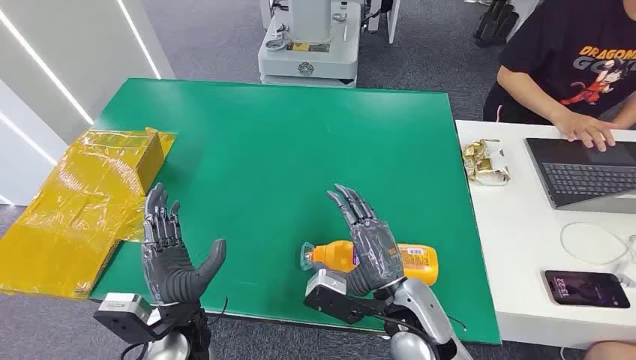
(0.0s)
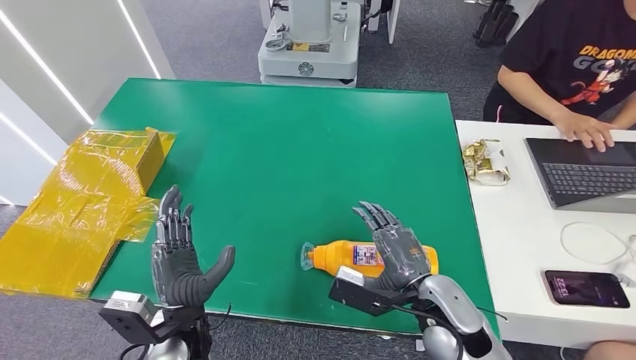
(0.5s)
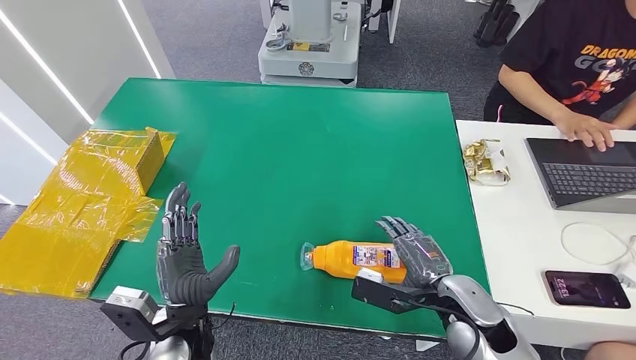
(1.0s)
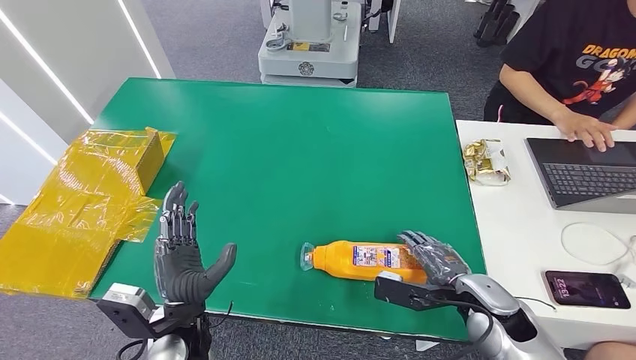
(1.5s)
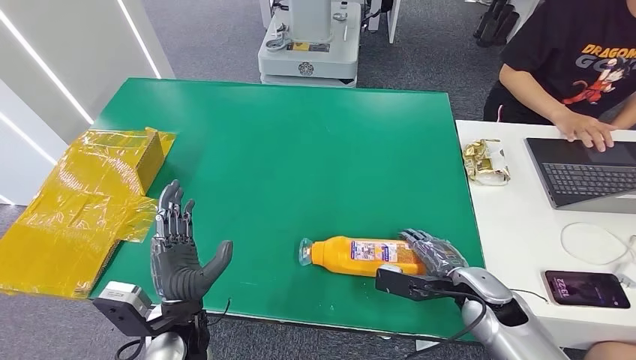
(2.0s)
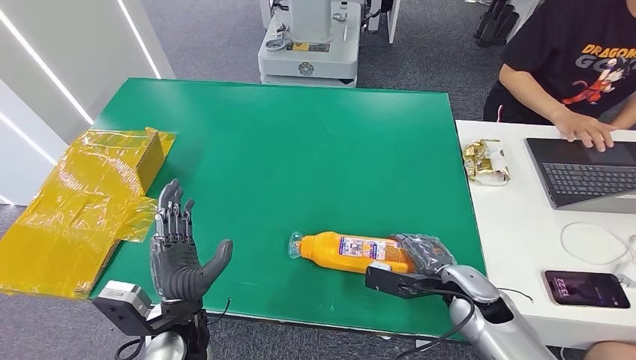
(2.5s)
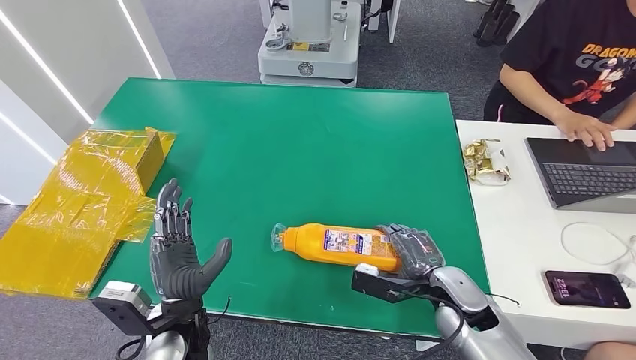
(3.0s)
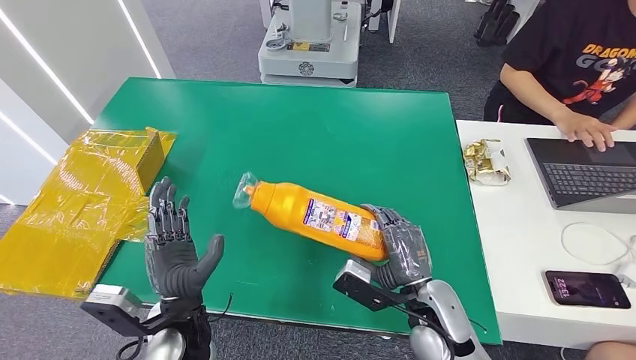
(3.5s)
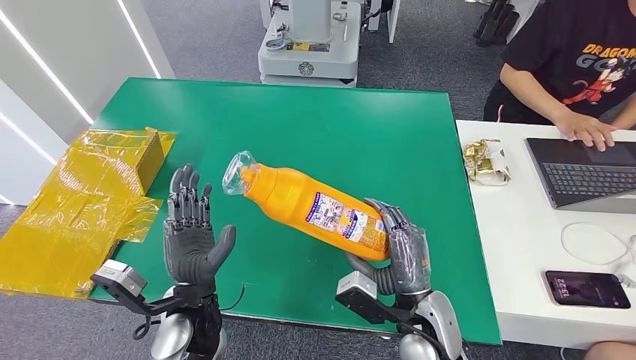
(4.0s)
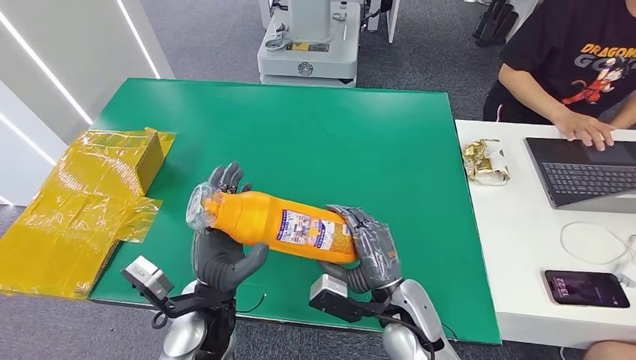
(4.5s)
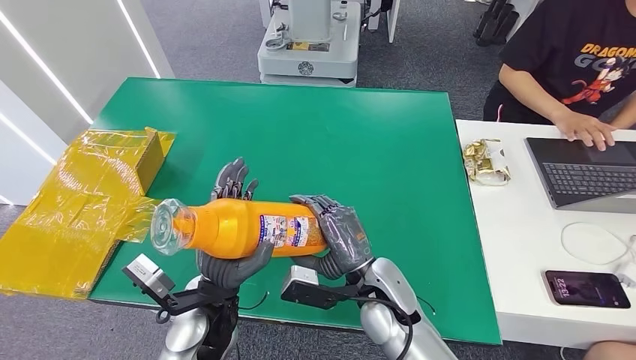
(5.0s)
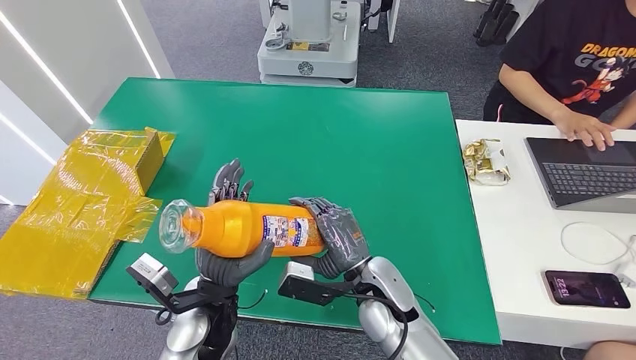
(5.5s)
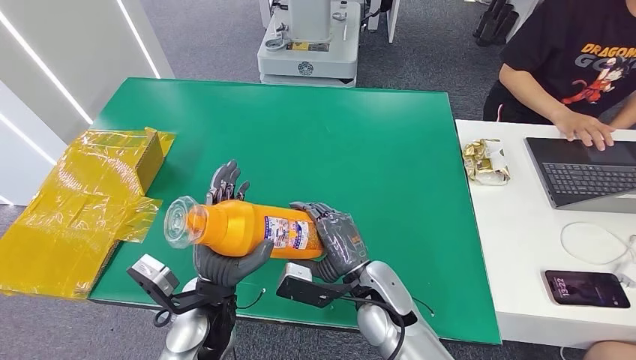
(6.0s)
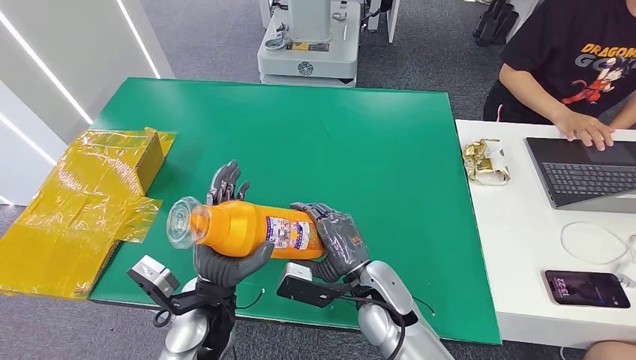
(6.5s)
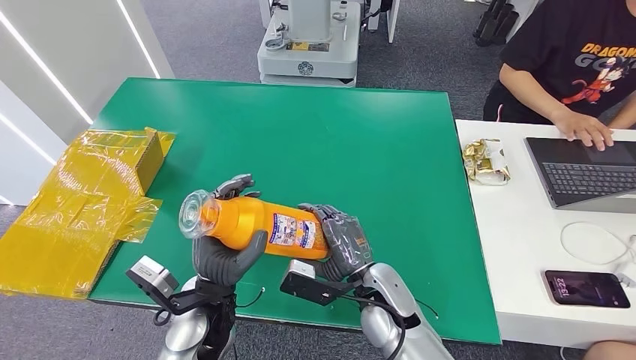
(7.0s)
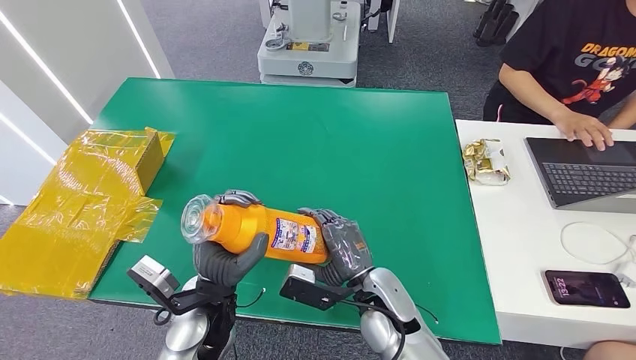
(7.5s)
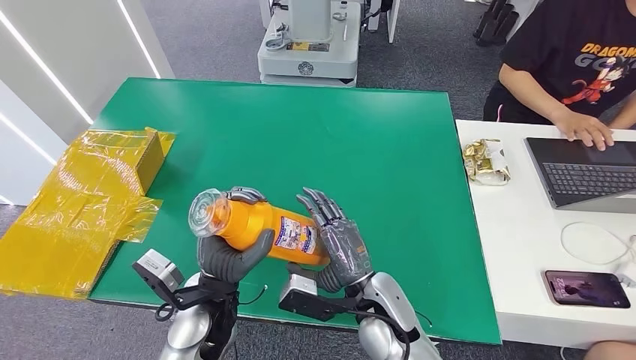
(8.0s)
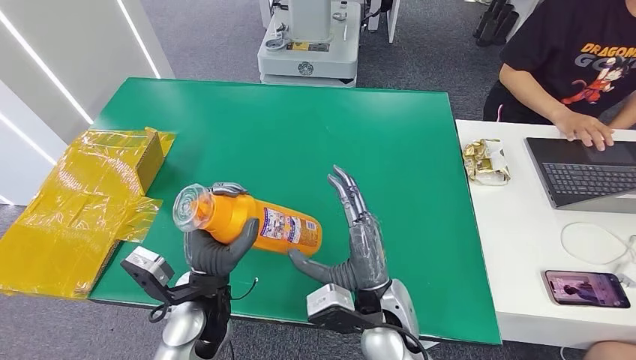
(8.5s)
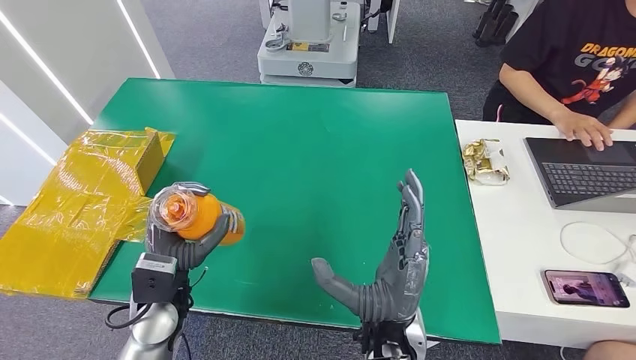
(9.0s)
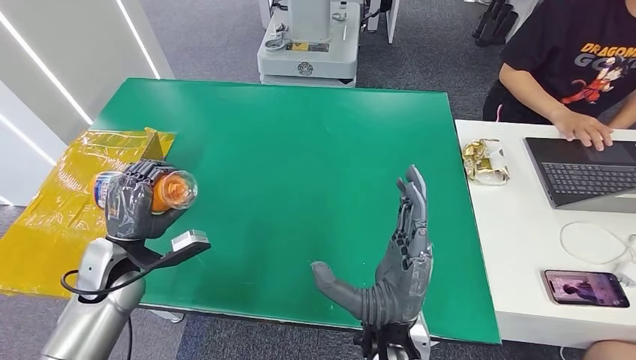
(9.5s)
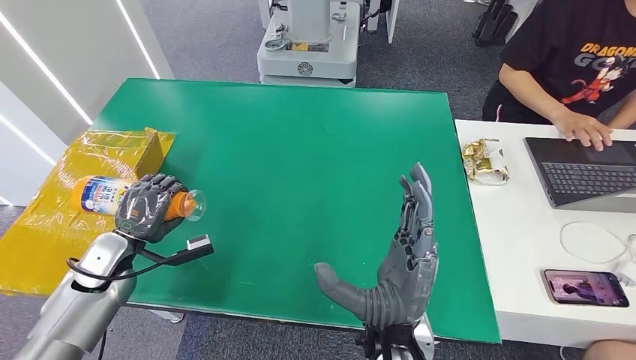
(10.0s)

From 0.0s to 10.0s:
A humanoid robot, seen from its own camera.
Step, from 0.0s to 3.5s: Pick up the bottle from the table.
From 2.0s to 4.0s: The right hand shifts some 15 cm to the left and backward.
From 4.0s to 6.0s: The right hand heads to the left, covering about 5 cm.
From 6.0s to 8.0s: The hands stay close to where they were, moving slightly.
From 8.0s to 10.0s: The right hand is displaced upward by roughly 10 cm; the left hand shifts some 25 cm to the left.

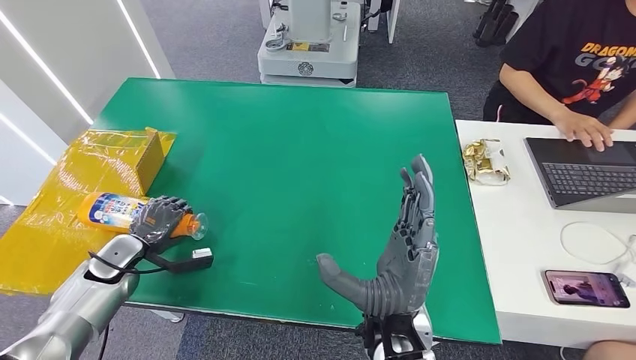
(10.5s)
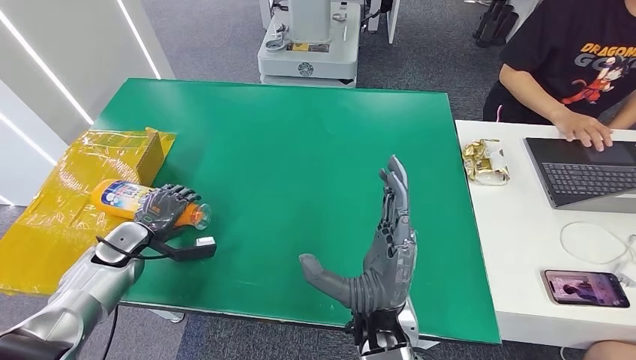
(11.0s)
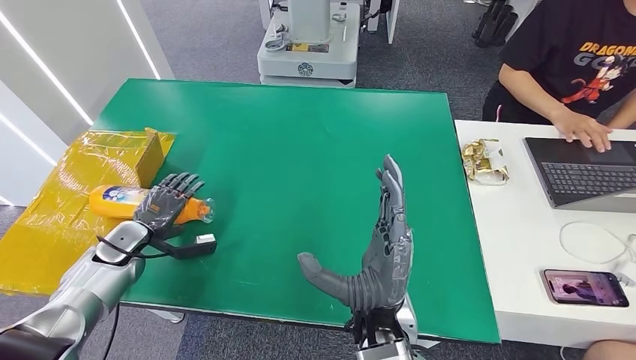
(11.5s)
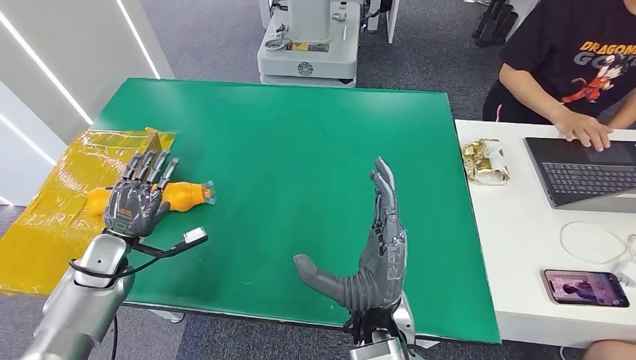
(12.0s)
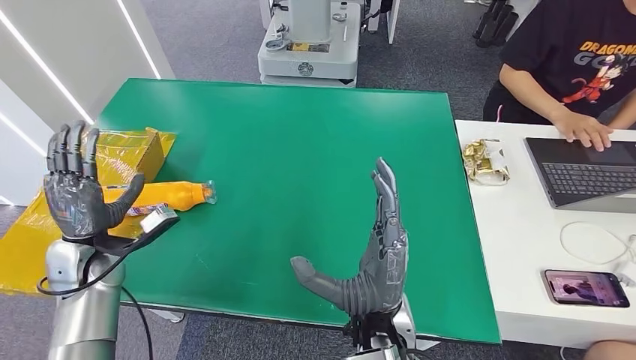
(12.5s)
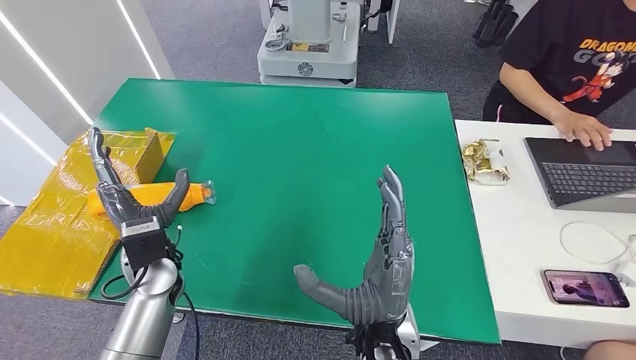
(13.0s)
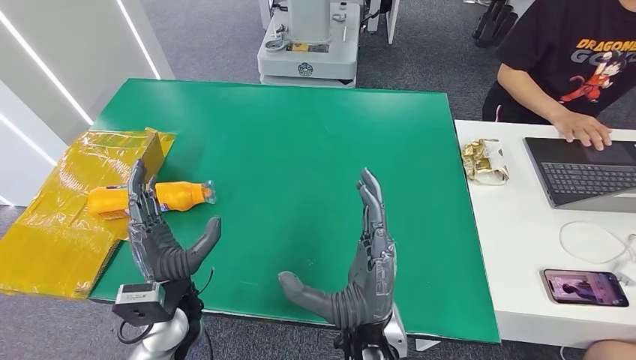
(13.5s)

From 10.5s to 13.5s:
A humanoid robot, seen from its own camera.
Step, from 10.5s to 13.5s: Turn the bottle to the front side.
From 12.0s to 13.5s: The left hand shifts roughly 20 cm to the right and backward.
